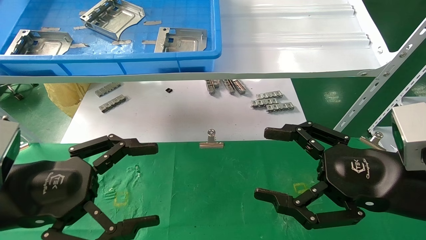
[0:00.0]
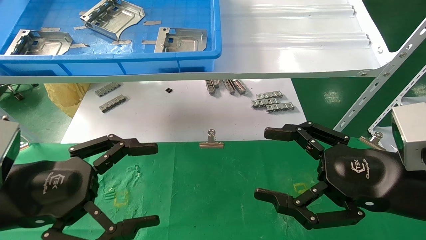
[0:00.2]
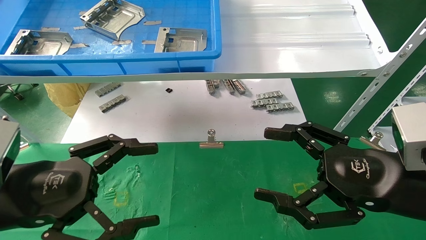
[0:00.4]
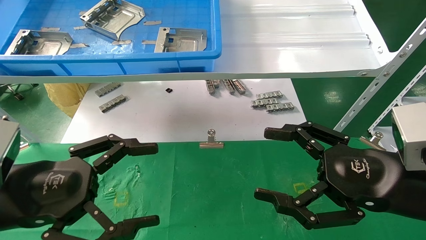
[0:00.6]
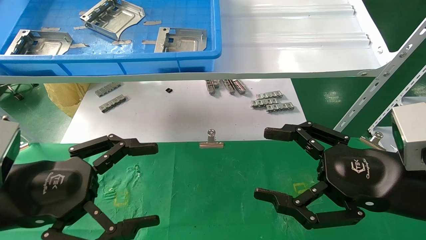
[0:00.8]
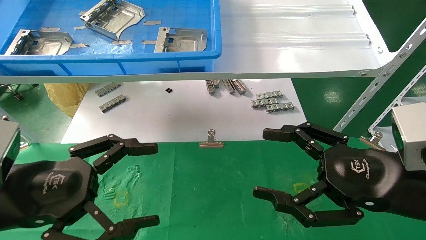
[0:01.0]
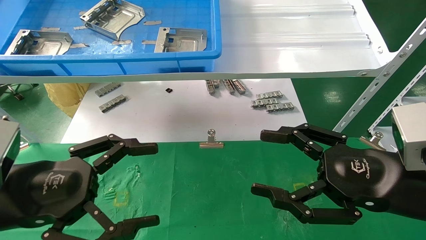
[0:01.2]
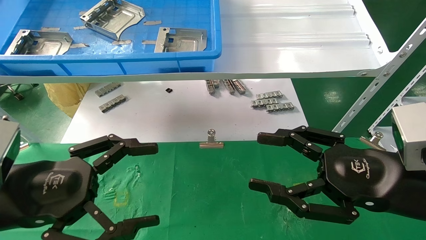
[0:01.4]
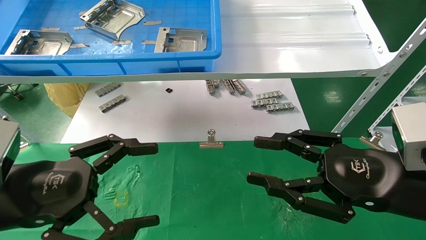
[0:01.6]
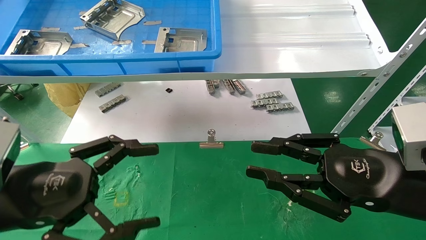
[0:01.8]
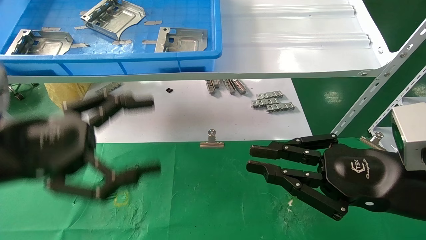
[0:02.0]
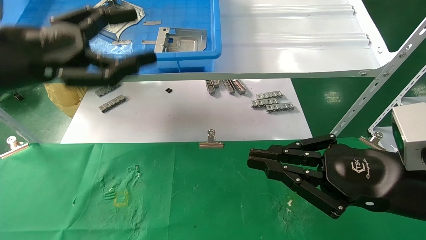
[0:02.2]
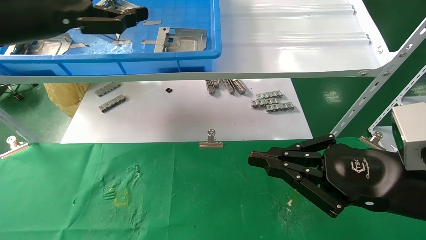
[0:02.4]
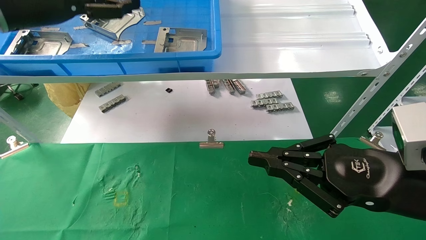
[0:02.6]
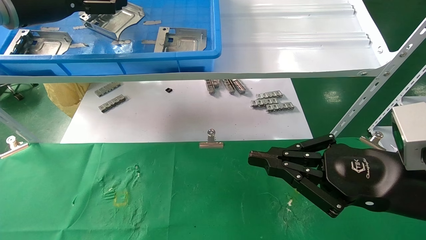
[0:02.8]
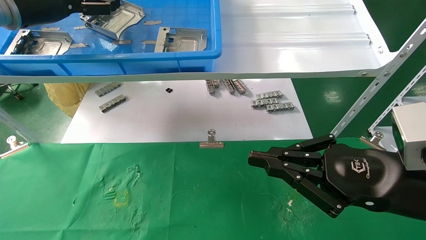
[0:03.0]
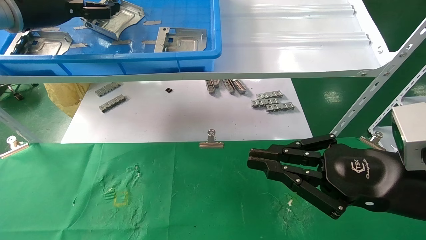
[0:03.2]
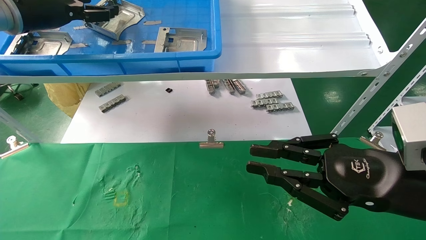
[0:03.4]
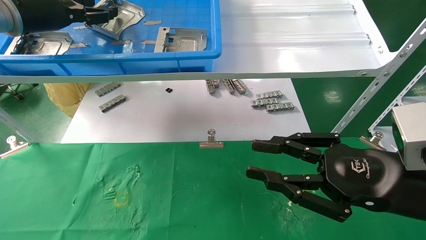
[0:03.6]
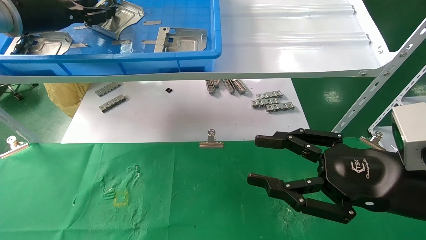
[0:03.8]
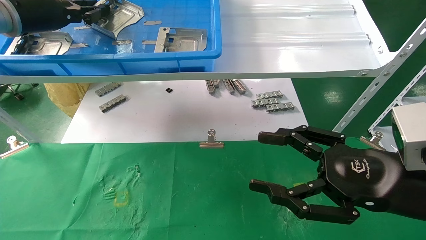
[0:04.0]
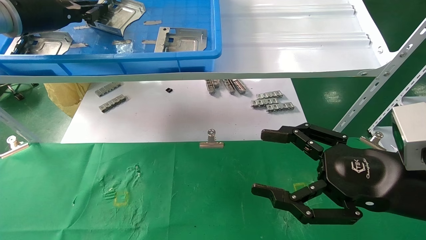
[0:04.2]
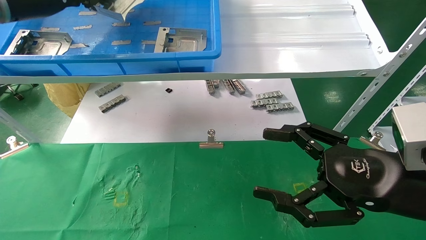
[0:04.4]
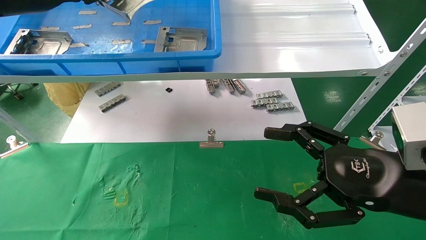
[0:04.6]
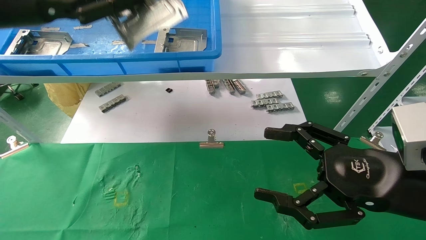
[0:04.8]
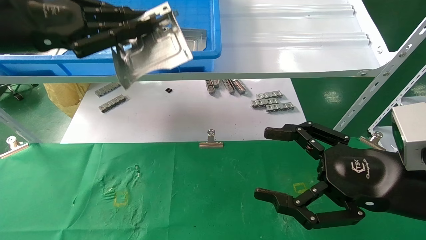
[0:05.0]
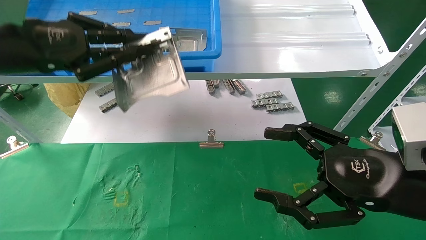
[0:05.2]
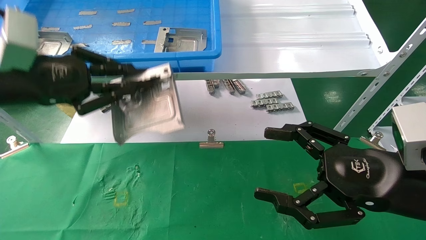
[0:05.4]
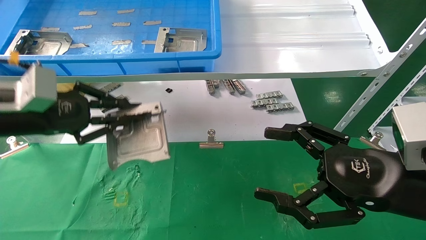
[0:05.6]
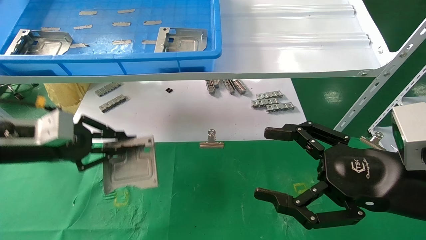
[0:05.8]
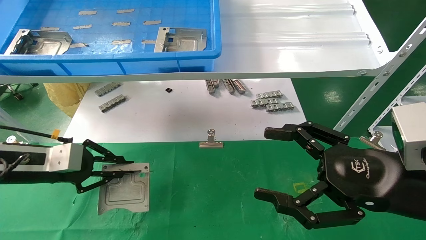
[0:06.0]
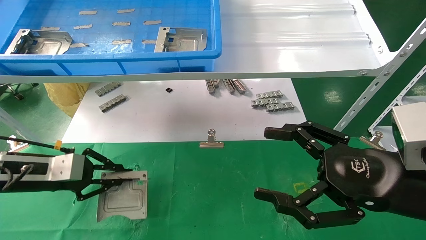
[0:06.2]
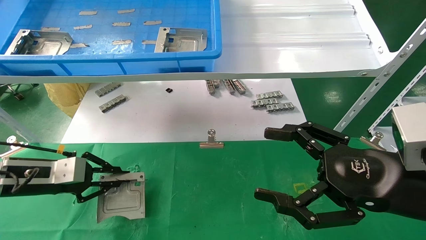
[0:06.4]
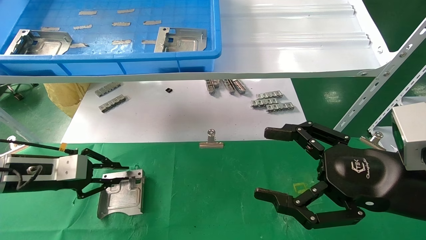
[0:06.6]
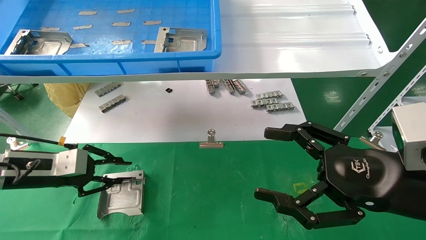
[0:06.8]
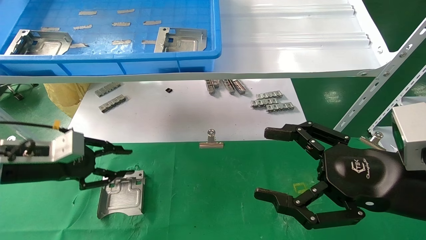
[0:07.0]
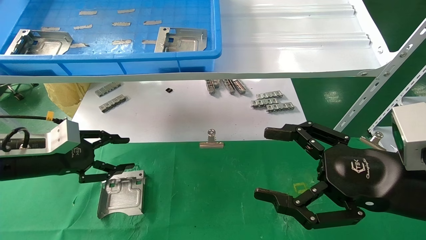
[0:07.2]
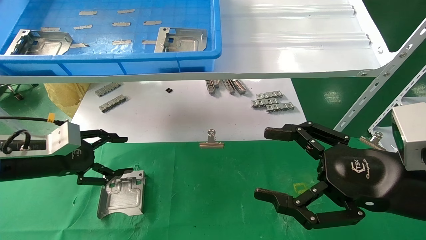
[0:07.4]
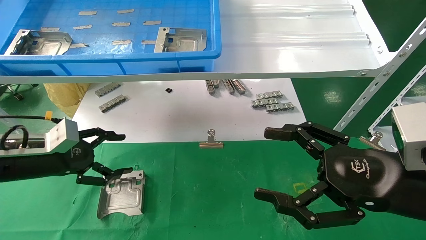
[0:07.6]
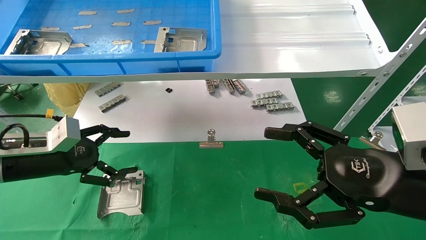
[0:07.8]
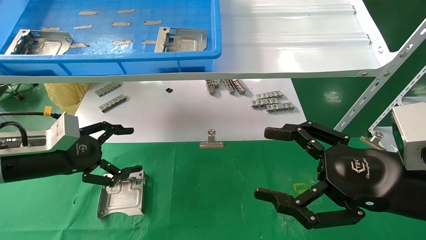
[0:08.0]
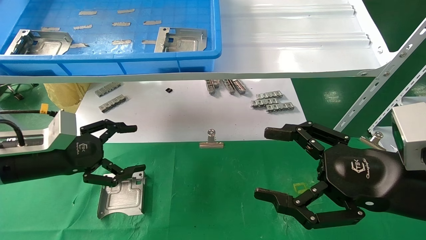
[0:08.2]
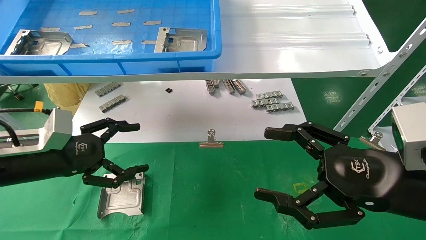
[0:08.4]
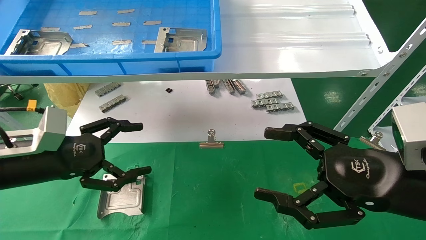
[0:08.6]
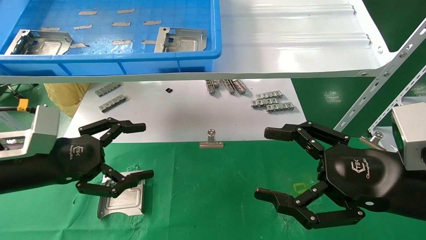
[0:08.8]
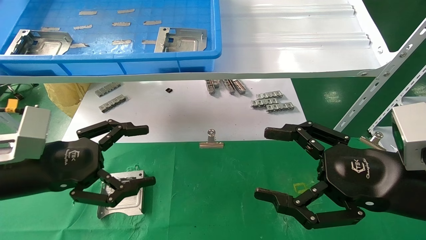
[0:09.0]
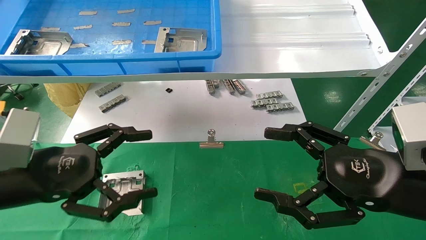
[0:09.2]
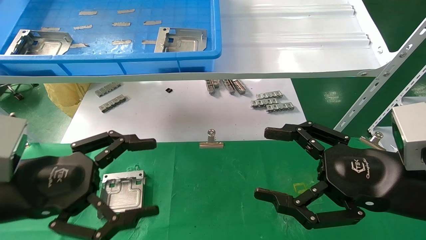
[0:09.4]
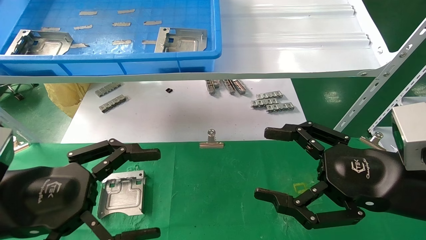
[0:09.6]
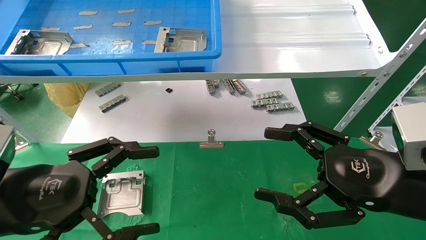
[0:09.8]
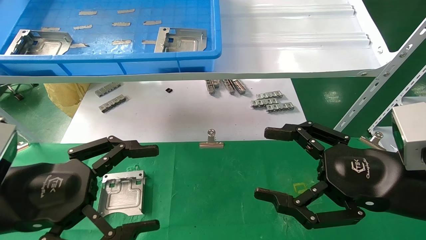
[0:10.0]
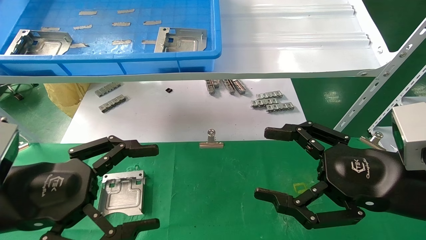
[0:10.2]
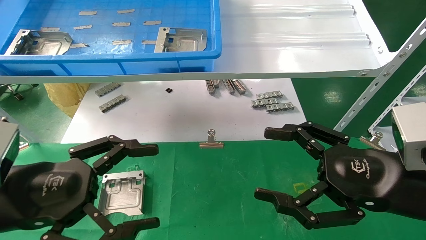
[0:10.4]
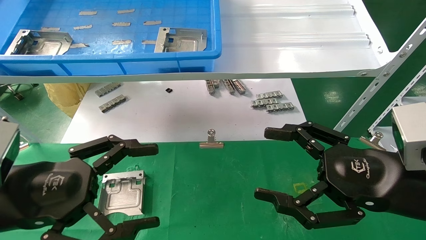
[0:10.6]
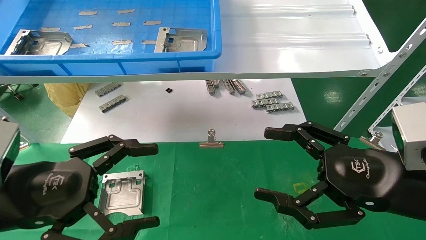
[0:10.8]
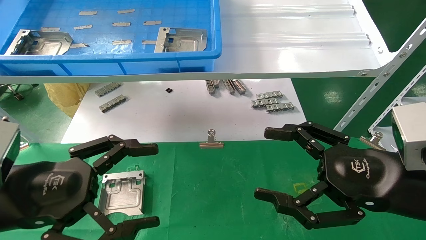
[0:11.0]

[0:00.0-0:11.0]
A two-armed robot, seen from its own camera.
Task of the whole recording: use the mechanical arm to pick up the parts and place them on the table.
Step, 0:02.2 to 0:04.2: Pick up the hard drive bracket from the feeding area.
Step, 0:04.4 to 0:06.8: Place the hard drive bracket into the box.
0:00.0 to 0:01.6: The right gripper closes.
0:01.6 to 0:03.2: The left gripper shifts roughly 30 cm upward and forward. The right gripper closes up.
0:03.2 to 0:04.8: The left gripper travels backward by about 10 cm, and closes up. The right gripper opens its fingers.
0:04.8 to 0:06.2: The left gripper travels downward by approximately 25 cm.
0:06.2 to 0:07.8: The left gripper opens.
0:07.8 to 0:09.4: The left gripper moves backward and to the right, approximately 15 cm.
0:09.4 to 0:11.0: The grippers move only a little.
